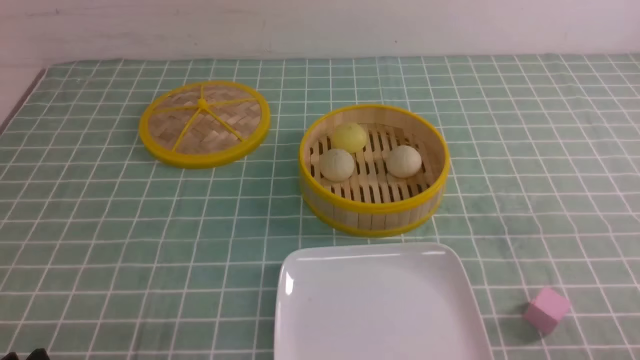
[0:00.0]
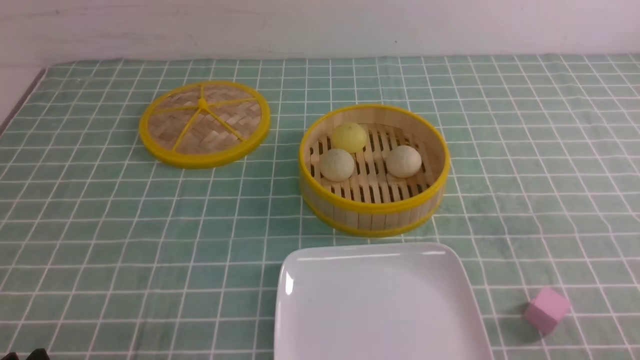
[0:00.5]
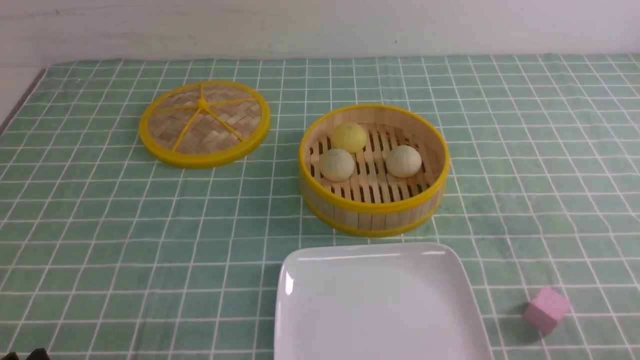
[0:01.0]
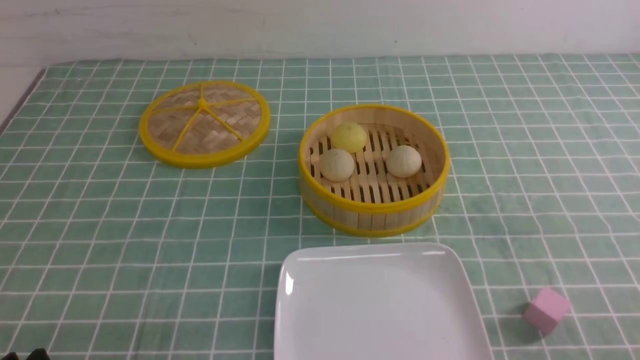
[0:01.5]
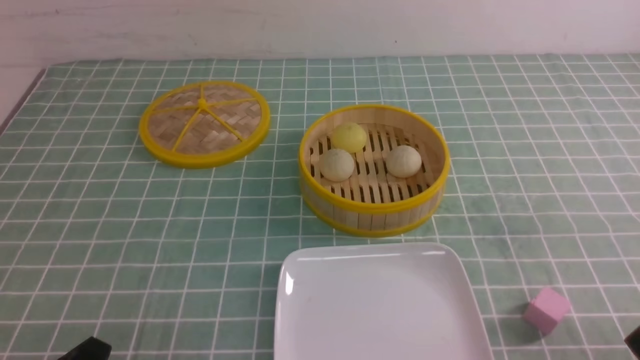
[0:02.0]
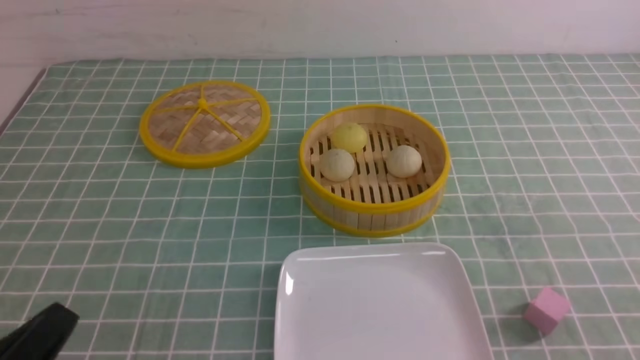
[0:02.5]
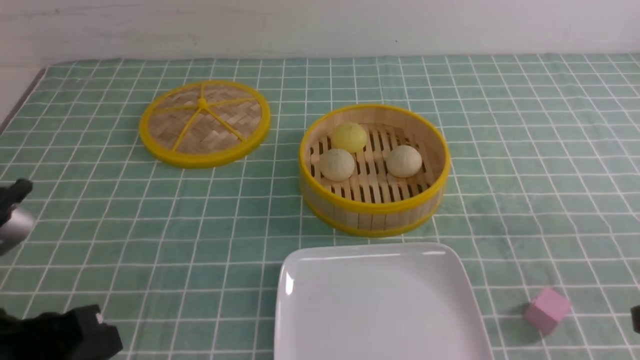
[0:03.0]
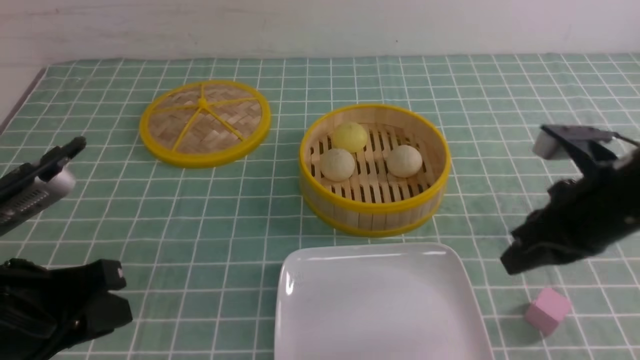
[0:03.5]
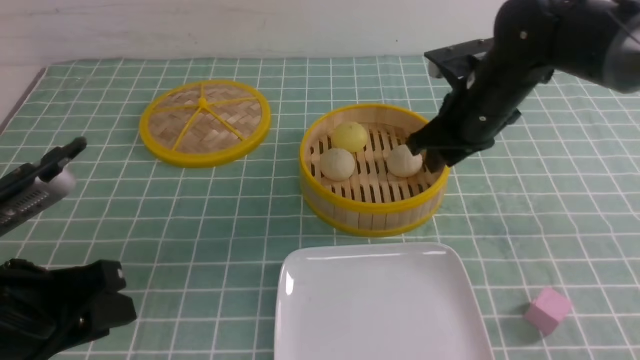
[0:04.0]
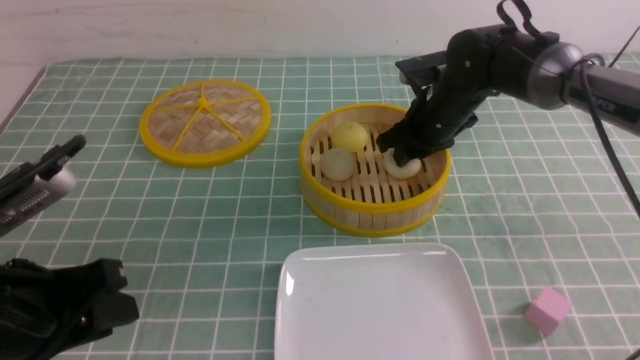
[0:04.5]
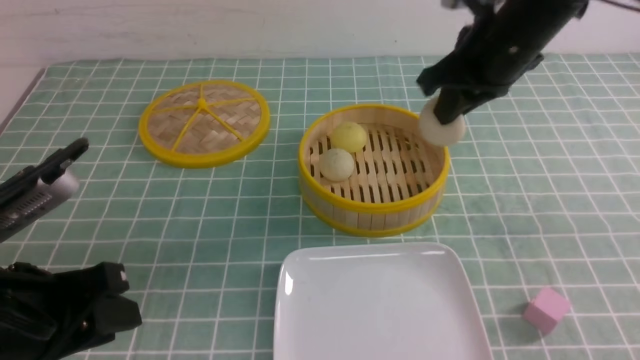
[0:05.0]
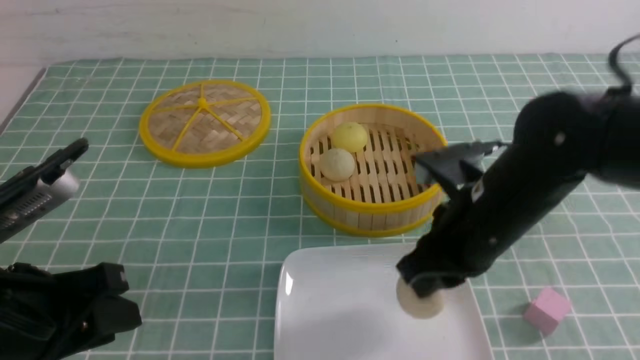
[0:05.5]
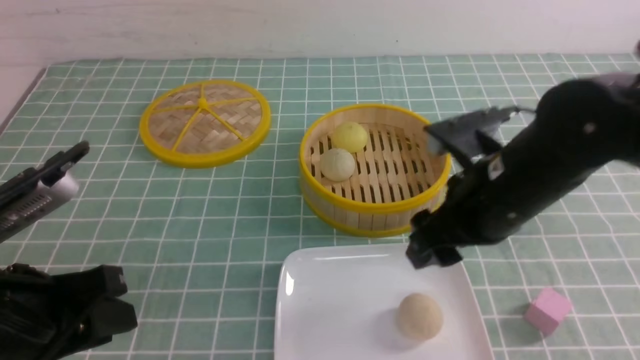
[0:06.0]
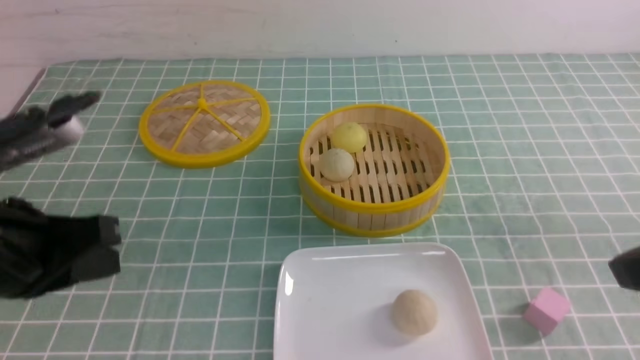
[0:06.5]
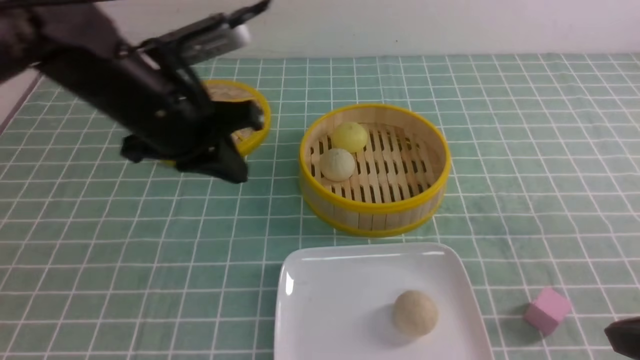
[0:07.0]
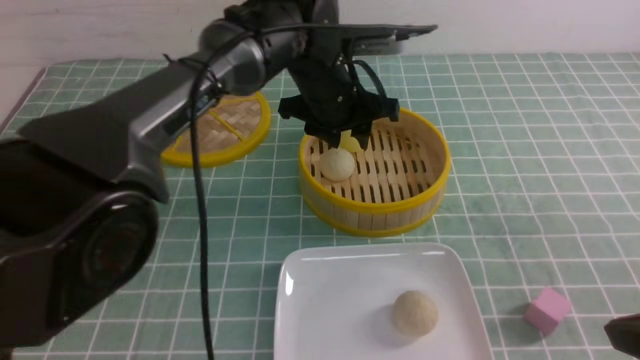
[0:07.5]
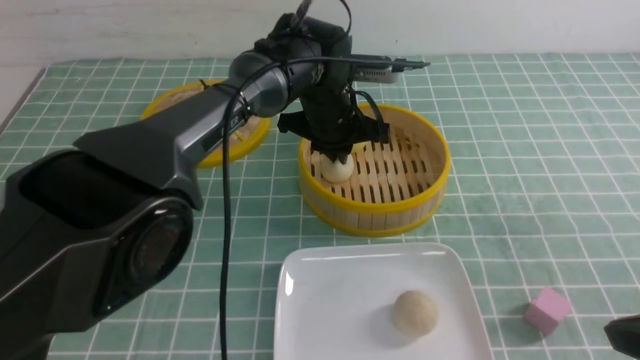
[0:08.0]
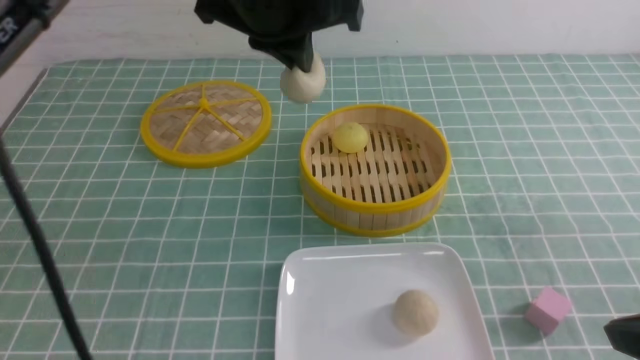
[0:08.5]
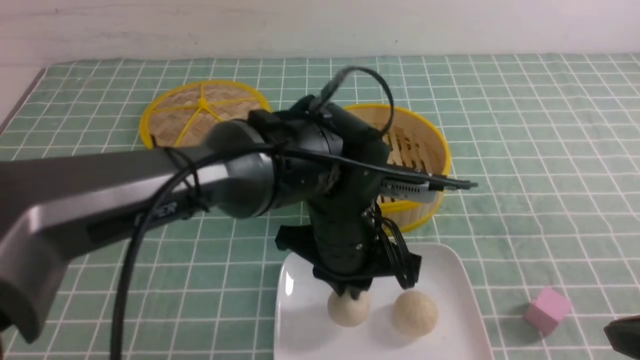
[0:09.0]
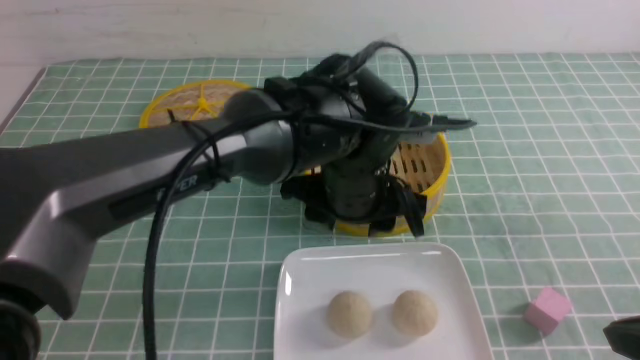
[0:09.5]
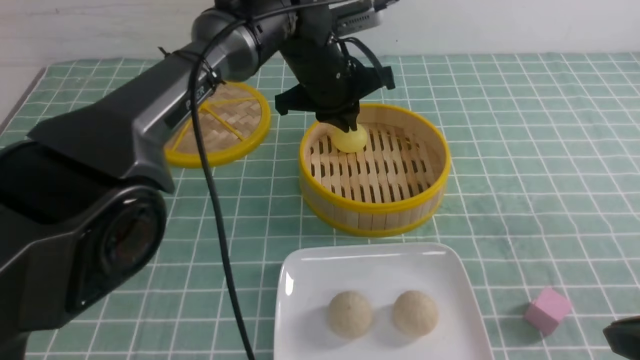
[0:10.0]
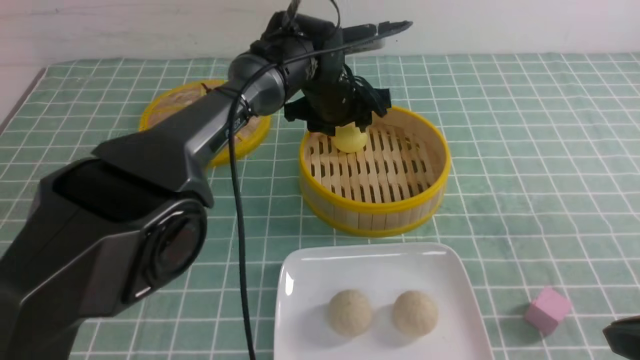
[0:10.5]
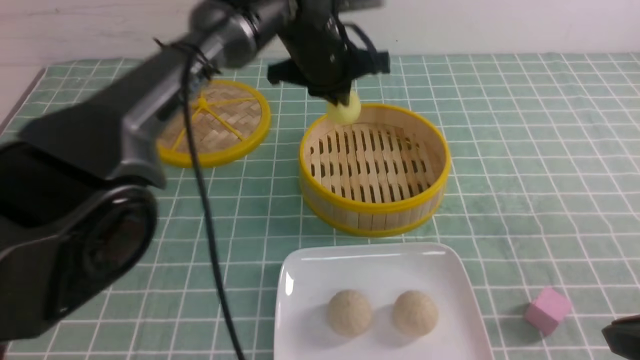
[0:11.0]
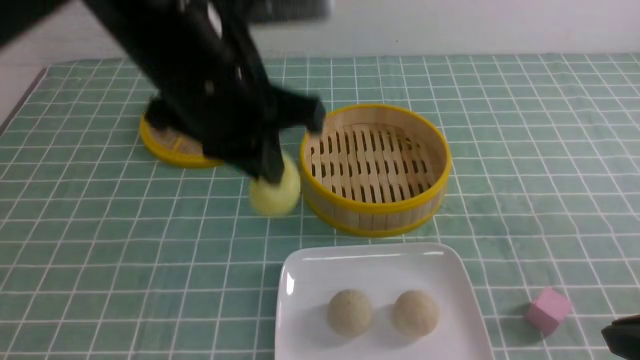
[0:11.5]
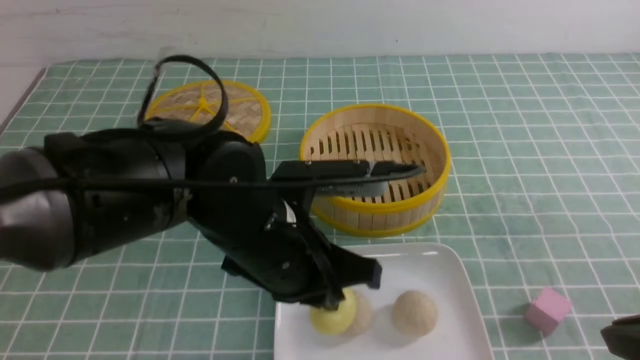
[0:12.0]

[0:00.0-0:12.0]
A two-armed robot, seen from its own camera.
Step, 0.0 to 4.5 s: use the right arm to grab the steamed stuffed bun that is closest to it.
Step, 5.0 to 5.5 s: use the right arm to put the steamed stuffed bun into the plate.
Step, 6.0 to 8.0 s: use the left arm to grab the steamed stuffed bun that is closest to it.
Step, 8.5 to 9.0 s: use the left arm to put the steamed stuffed bun into the plate.
Step, 9.5 to 10.5 s: use the left arm to grab the steamed stuffed bun that is closest to it.
2.0 to 4.0 s: The right gripper heads forward, covering some 35 cm, and closes, then reopens, while the left gripper goes some 15 cm upward and forward, and closes, then reopens.
4.0 to 6.0 s: The right gripper heads backward, covering some 15 cm, and closes and opens again.
6.0 to 8.0 s: The right gripper goes approximately 20 cm backward and to the right, and closes. Meanwhile the left gripper is displaced forward and to the right by some 35 cm, and closes its fingers.
8.0 to 10.0 s: The left gripper moves approximately 15 cm backward and comes back, and opens, then closes again.
10.0 to 12.0 s: The left gripper is displaced backward by roughly 20 cm, and opens, then closes once more.

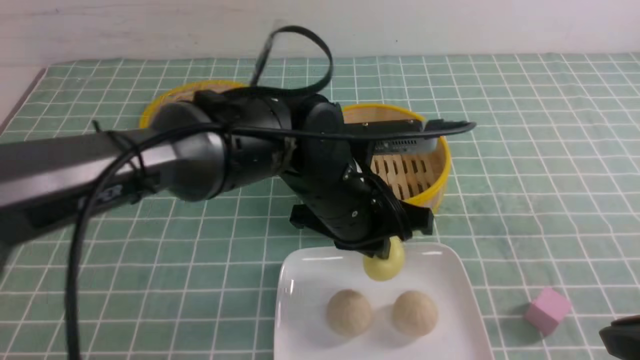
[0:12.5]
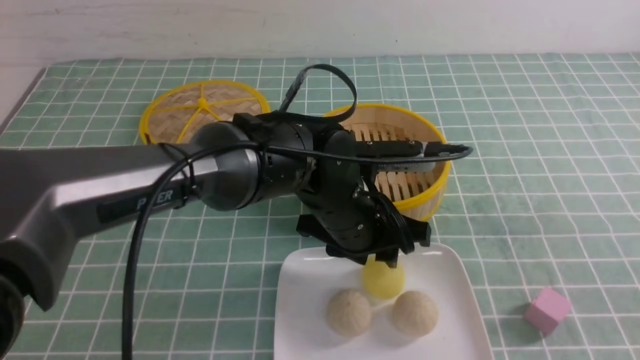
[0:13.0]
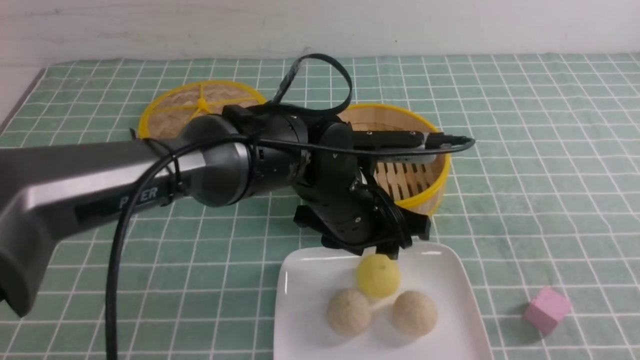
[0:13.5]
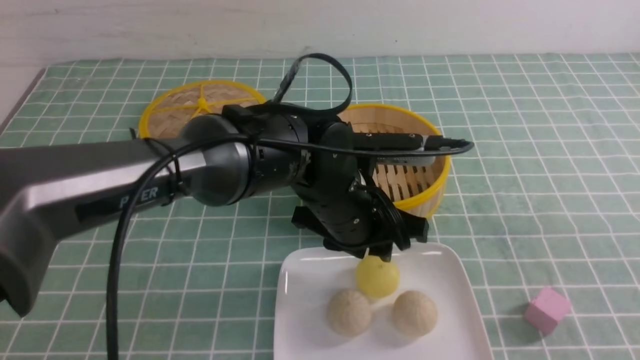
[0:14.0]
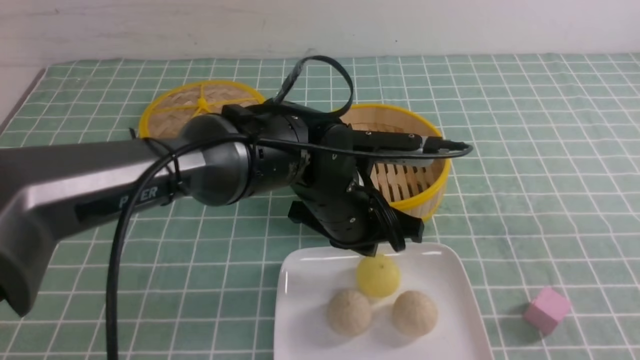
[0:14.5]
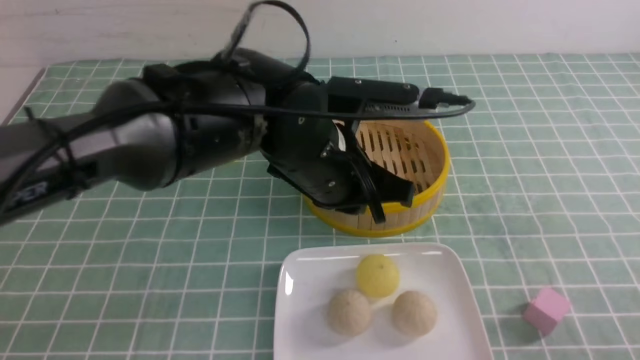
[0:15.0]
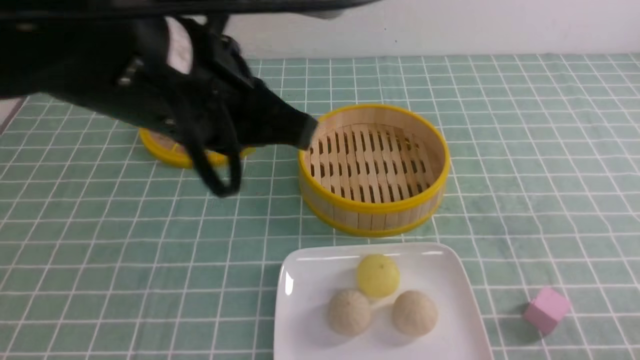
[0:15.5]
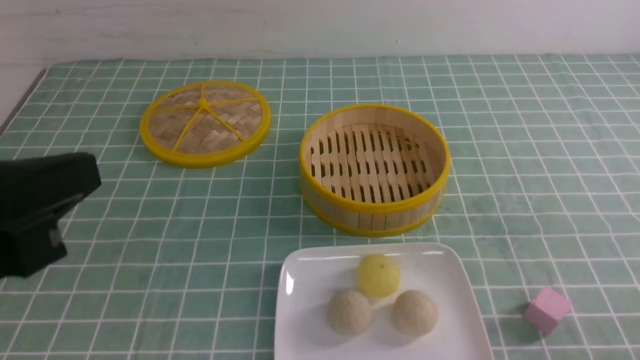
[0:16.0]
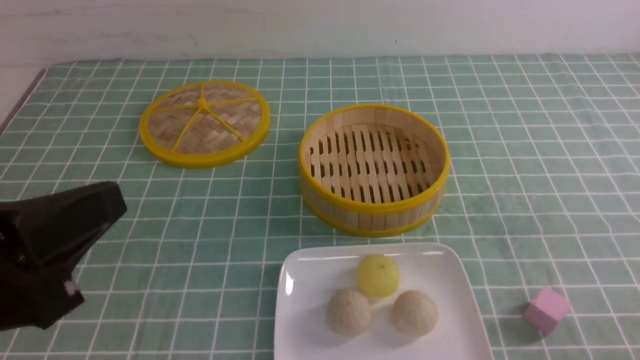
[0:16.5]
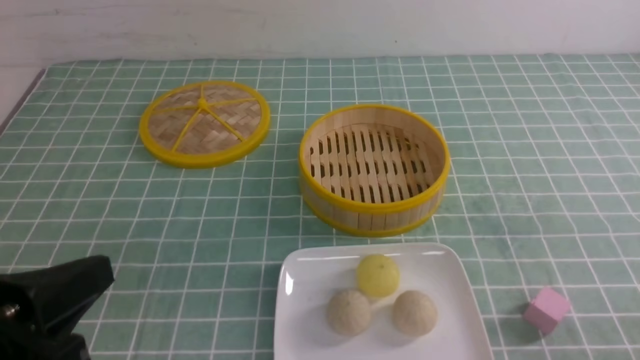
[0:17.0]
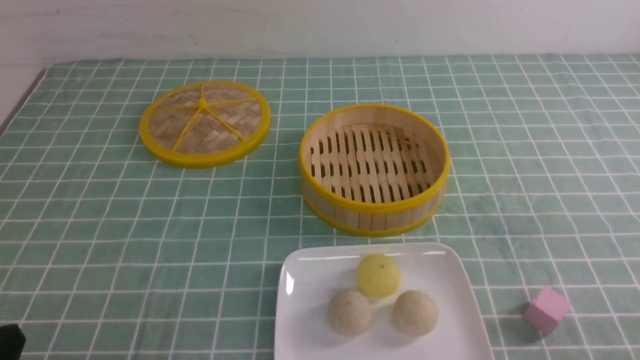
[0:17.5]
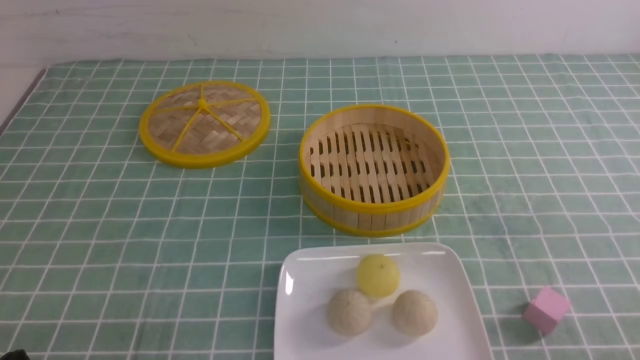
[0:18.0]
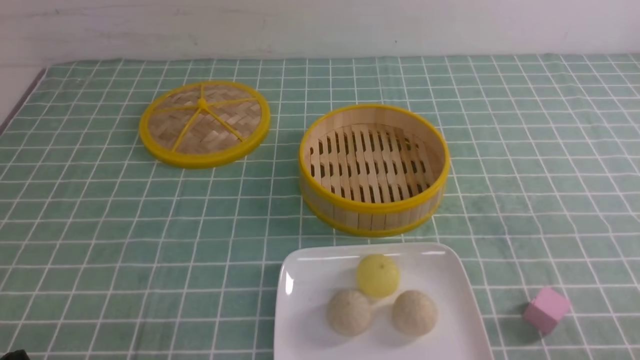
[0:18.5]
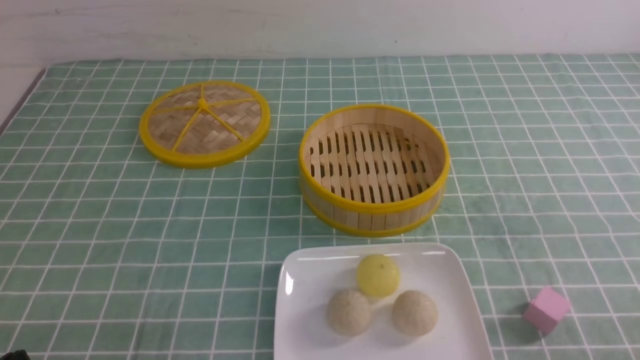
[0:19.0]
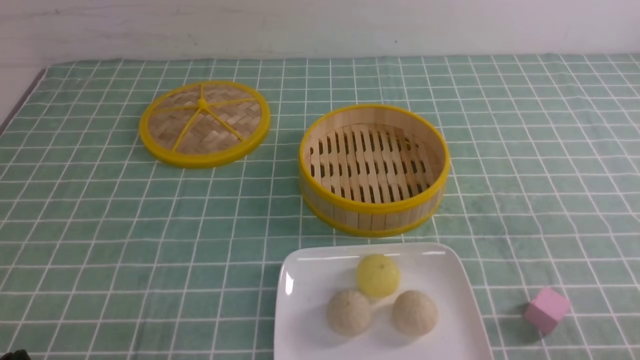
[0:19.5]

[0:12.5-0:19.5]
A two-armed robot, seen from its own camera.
12.5 to 14.5 s: The left gripper opens and closes again; the right gripper goes some 5 cm backward.
14.5 to 16.0 s: The right gripper moves downward, about 10 cm, while the left gripper travels to the left, backward and upward by some 35 cm.
16.0 to 17.5 s: The left gripper is displaced downward by some 20 cm.

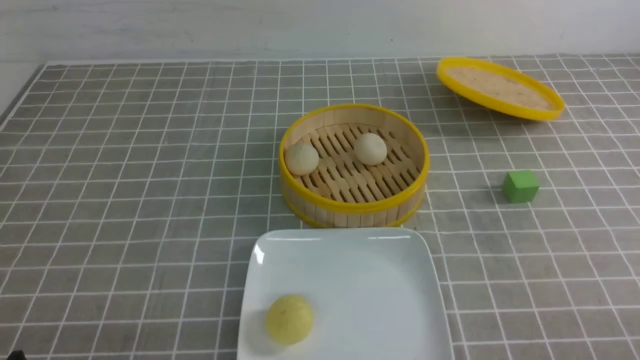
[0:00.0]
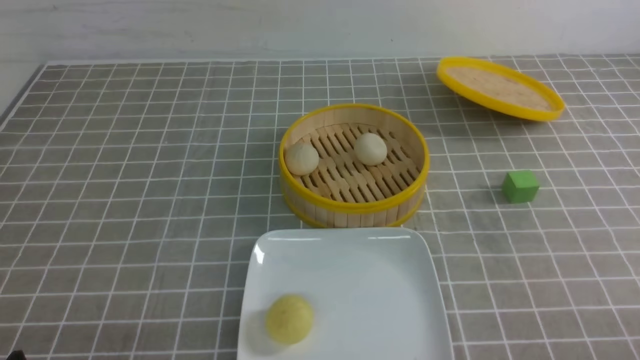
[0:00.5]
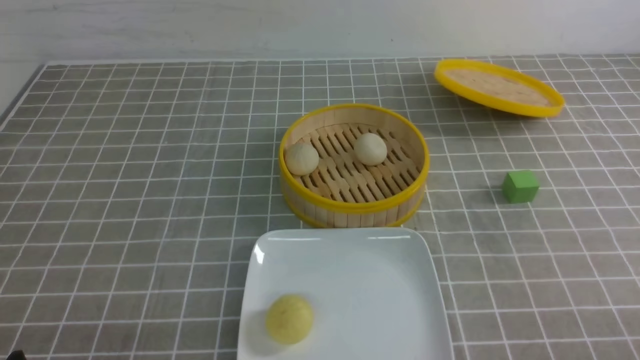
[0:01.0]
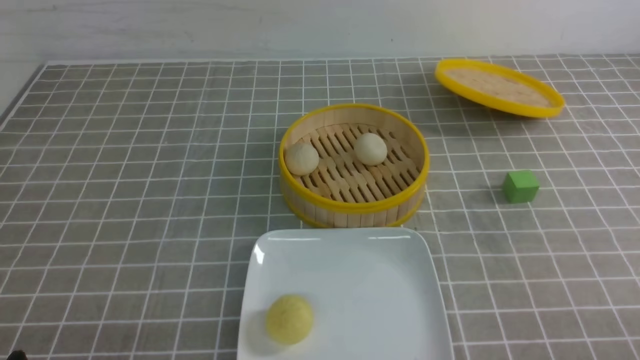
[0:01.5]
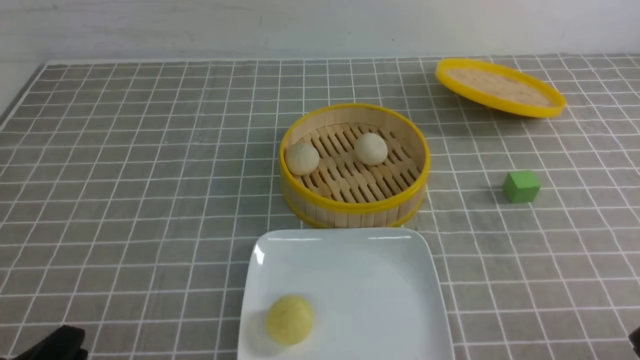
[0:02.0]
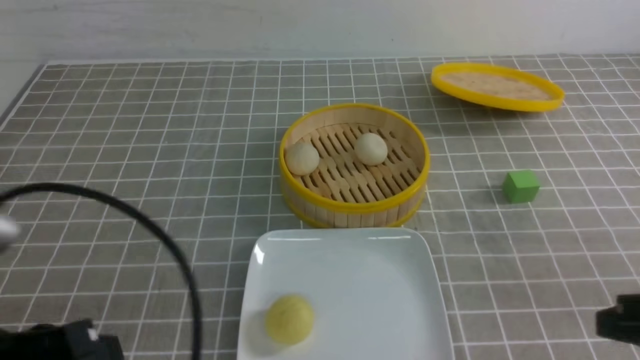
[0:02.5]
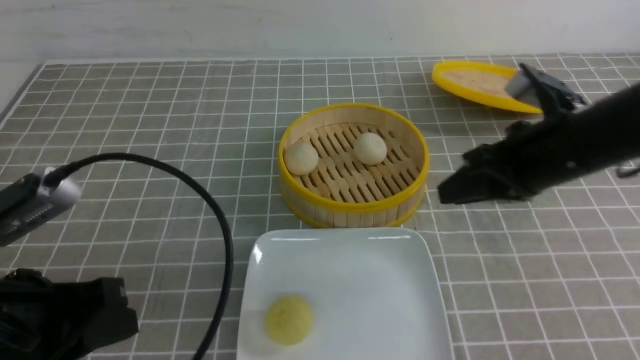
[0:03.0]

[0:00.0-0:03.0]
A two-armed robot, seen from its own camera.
1.5 to 3.0 s: The left gripper moves upward and forward, about 15 cm, and closes its fingers; the right gripper moves forward and to the left, approximately 30 cm, and closes and opens again.
